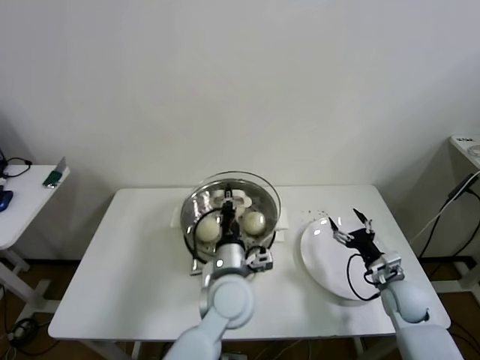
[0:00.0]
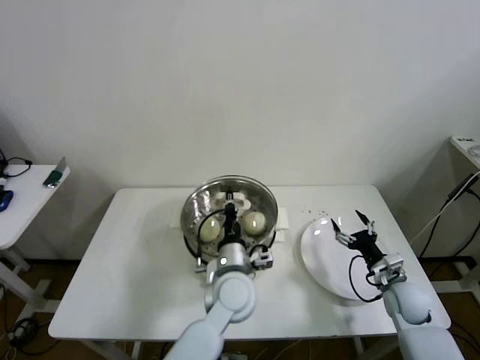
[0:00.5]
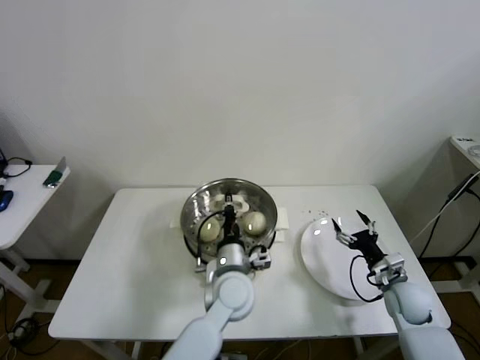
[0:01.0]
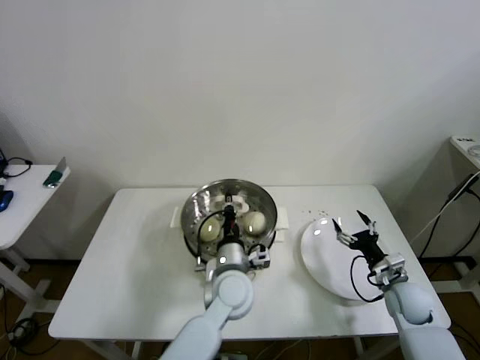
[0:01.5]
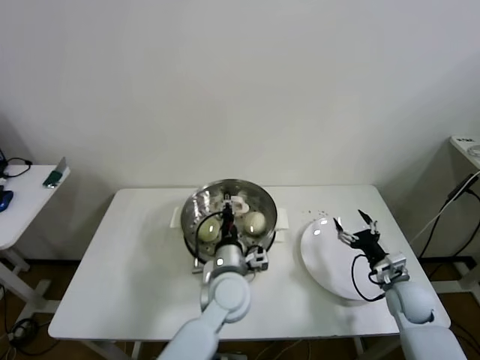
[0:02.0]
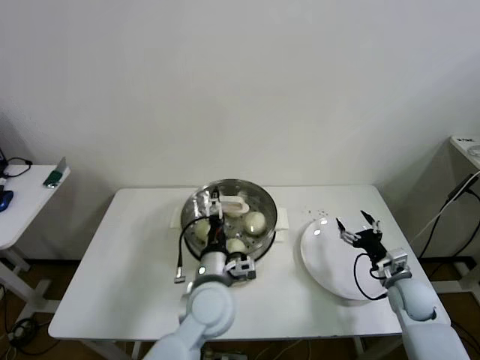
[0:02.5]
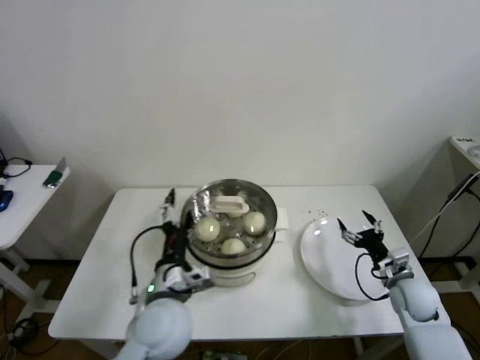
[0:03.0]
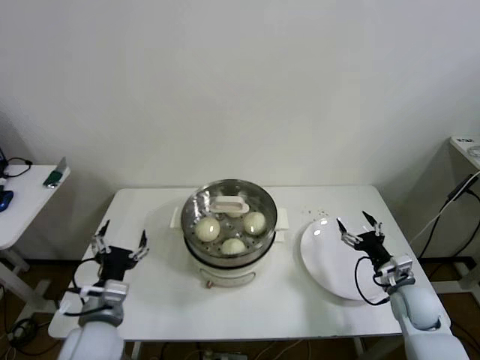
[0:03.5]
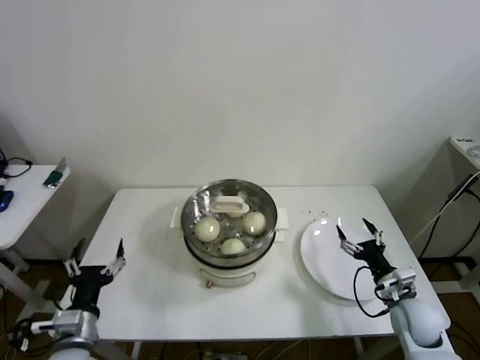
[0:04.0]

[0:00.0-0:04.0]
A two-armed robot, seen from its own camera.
Step, 0.0 to 2.5 s: Place the pot lid on the steamer with left gripper.
0.0 to 2.0 s: The grippers make only small movements.
2.0 to 4.0 s: The left gripper is displaced to the left and backward by roughly 30 cm, and opens.

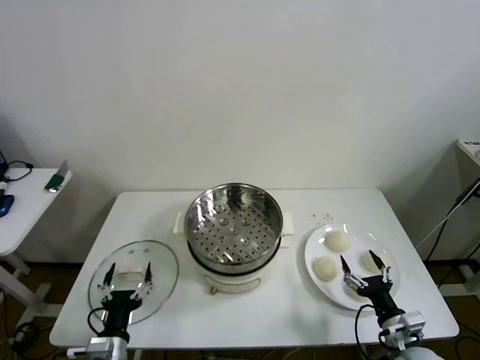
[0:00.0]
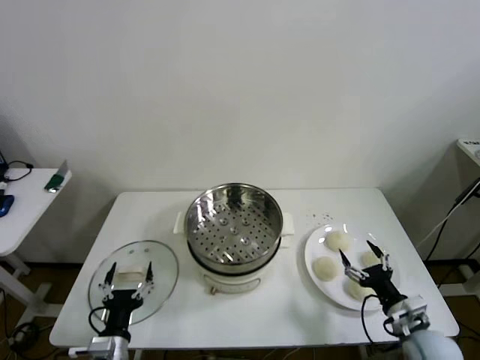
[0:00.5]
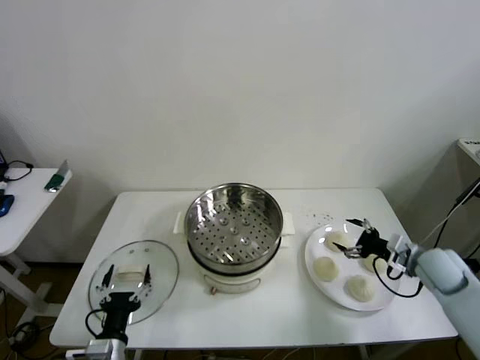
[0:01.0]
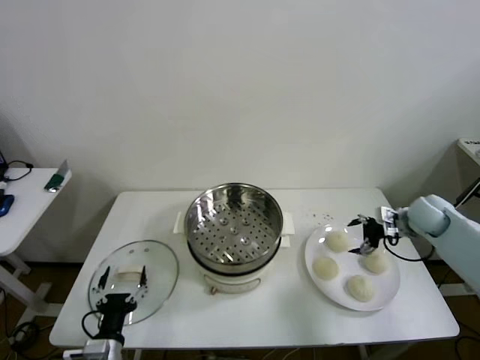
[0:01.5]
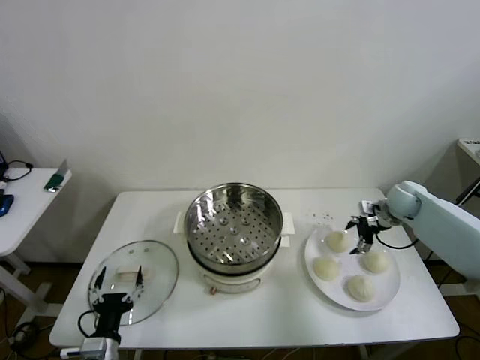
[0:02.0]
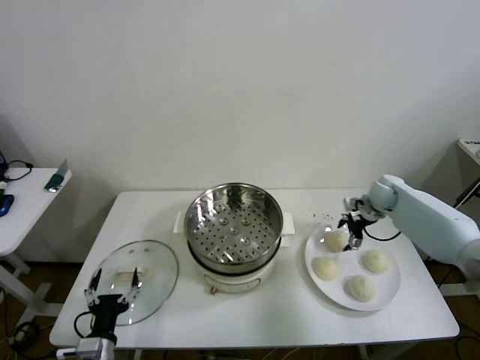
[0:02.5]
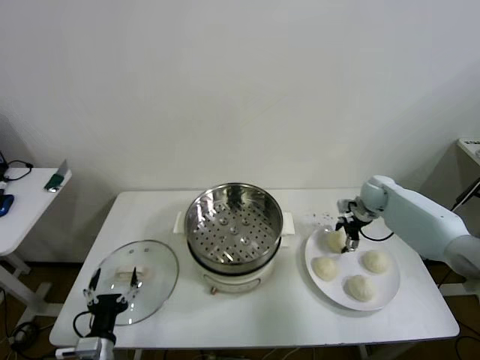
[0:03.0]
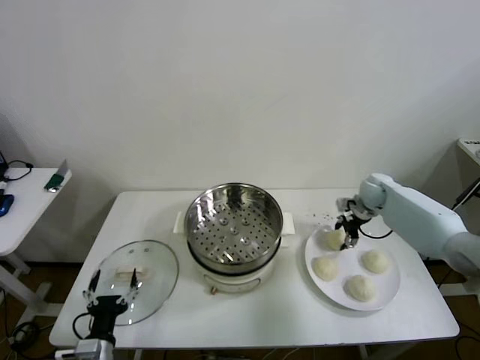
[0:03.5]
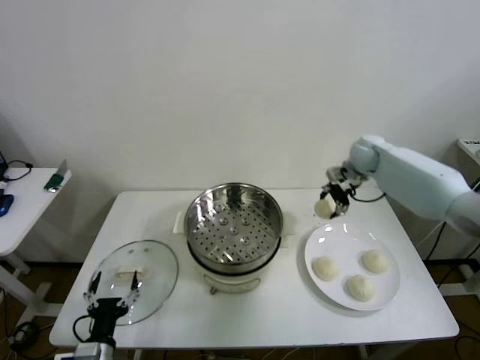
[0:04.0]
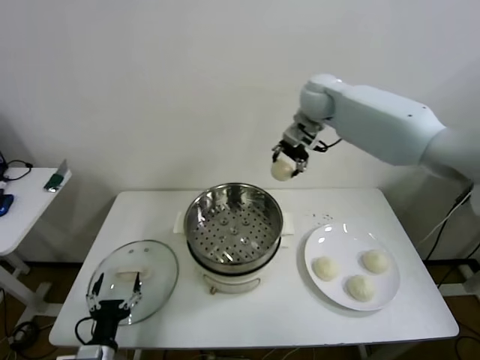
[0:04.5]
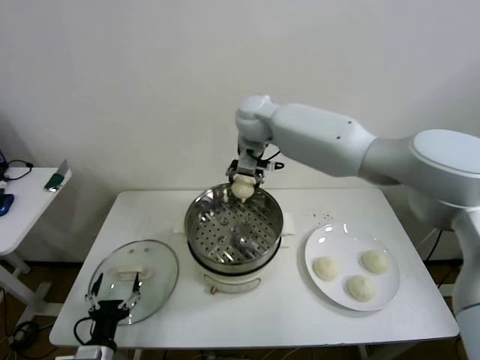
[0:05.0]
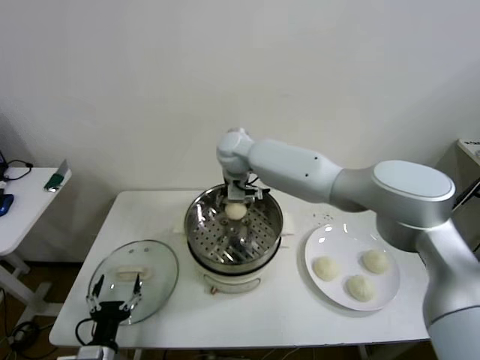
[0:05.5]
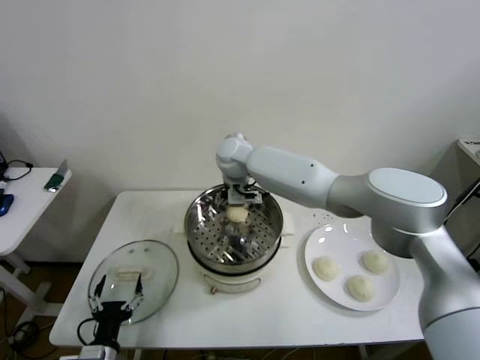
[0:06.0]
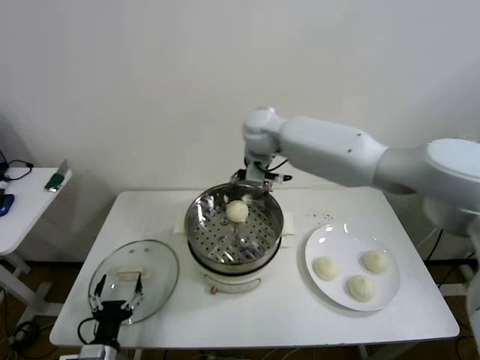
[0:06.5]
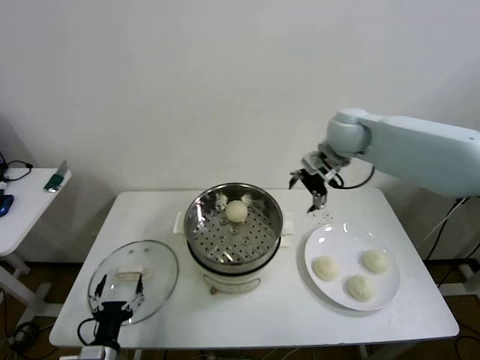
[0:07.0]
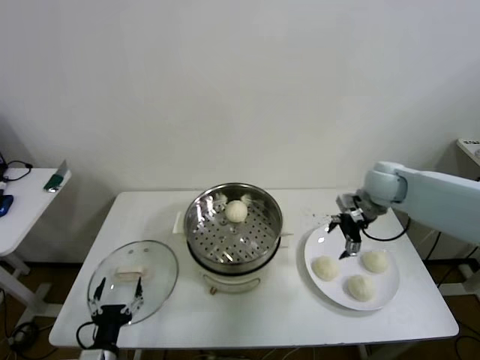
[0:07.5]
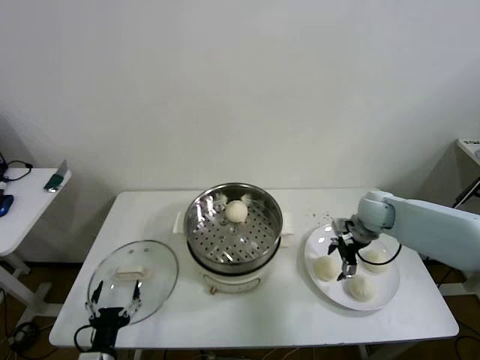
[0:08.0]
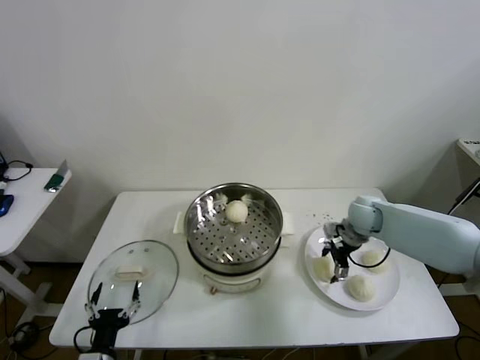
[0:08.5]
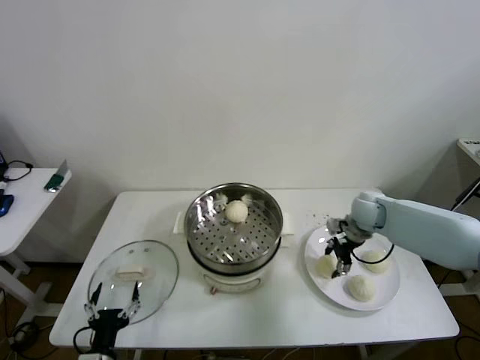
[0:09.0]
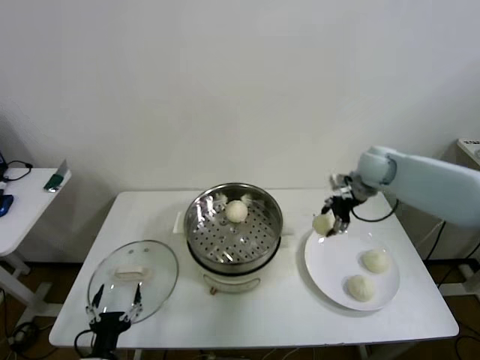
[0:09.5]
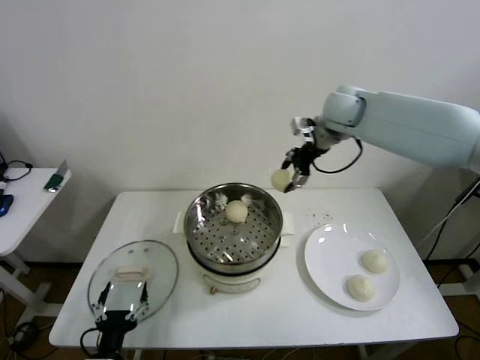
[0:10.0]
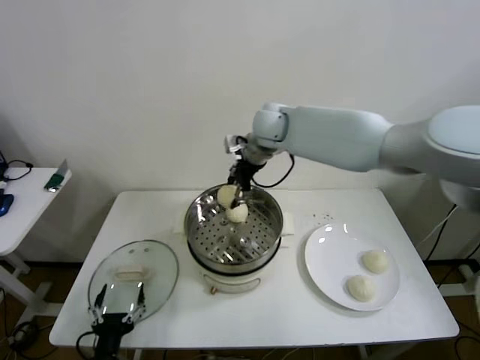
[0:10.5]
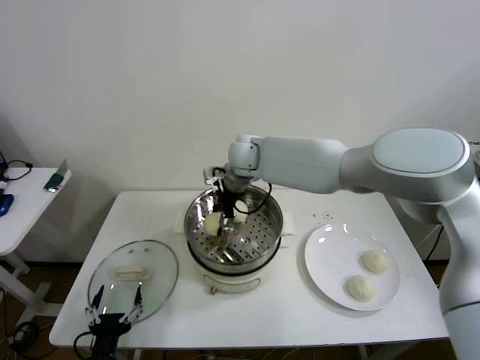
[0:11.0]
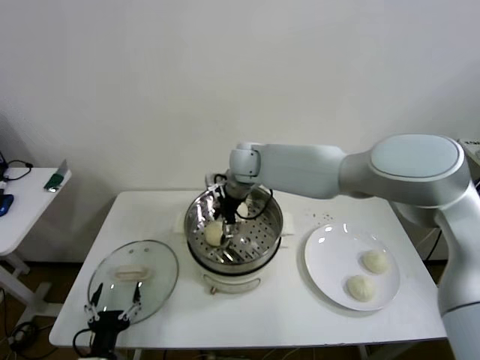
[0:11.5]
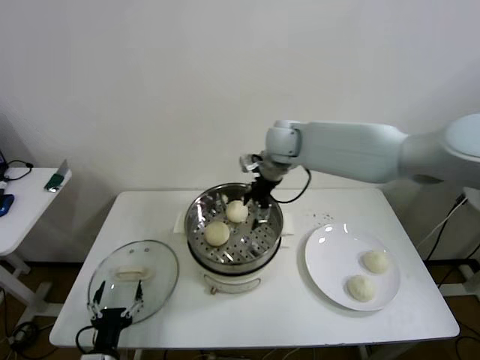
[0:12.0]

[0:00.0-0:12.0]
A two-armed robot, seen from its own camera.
Step, 0.0 to 3.0 s: Grasp the baozi in the plate with right gripper.
Step, 4.0 to 6.0 s: Place the baozi on the steamer with right gripper.
Step, 7.0 to 8.5 s: Grasp the baozi in the plate with right gripper.
Step, 9.0 to 11.5 s: Place the baozi on the steamer with right gripper.
2.0 to 4.0 s: The right gripper shifts approximately 20 cm upward, to the left and forward, and closes.
4.0 to 6.0 s: The right gripper travels to the left by about 30 cm, and opens up.
6.0 to 8.0 s: The right gripper shifts about 35 cm to the right.
8.0 to 10.0 s: The right gripper is displaced upward and to the left by roughly 30 cm, and closes its fingers.
10.0 to 12.0 s: The right gripper heads to the left and downward, covering approximately 10 cm, and opens up.

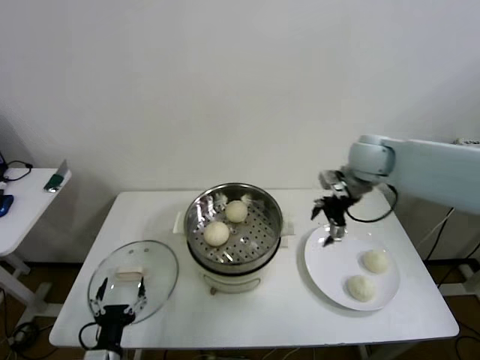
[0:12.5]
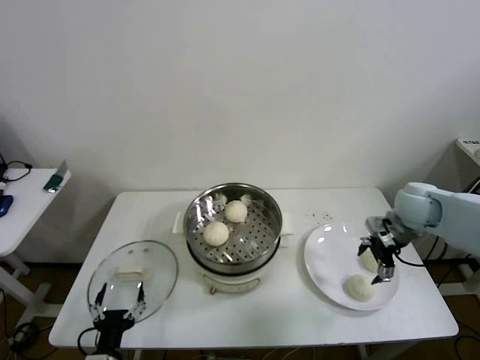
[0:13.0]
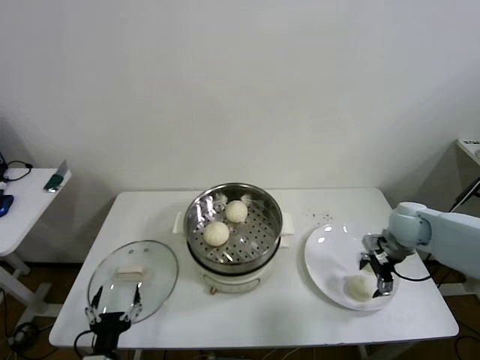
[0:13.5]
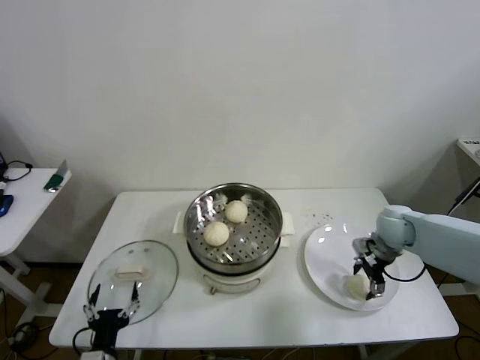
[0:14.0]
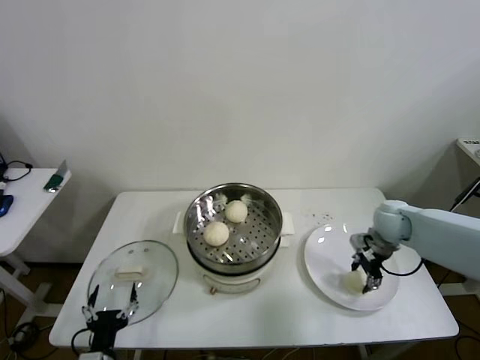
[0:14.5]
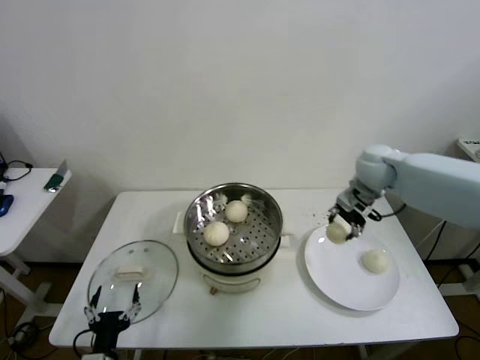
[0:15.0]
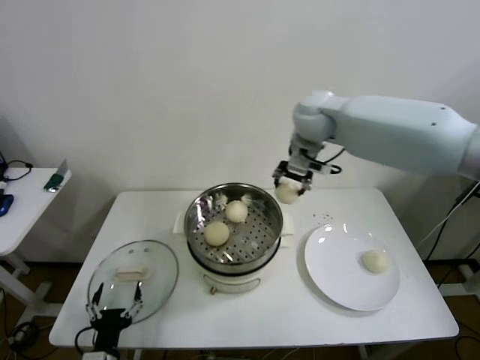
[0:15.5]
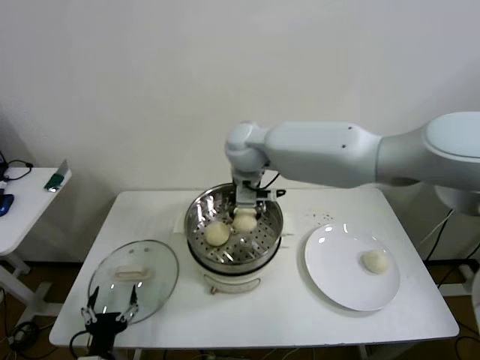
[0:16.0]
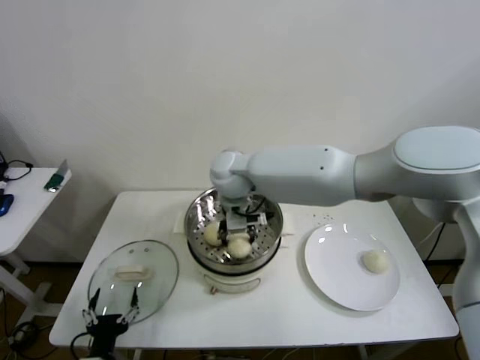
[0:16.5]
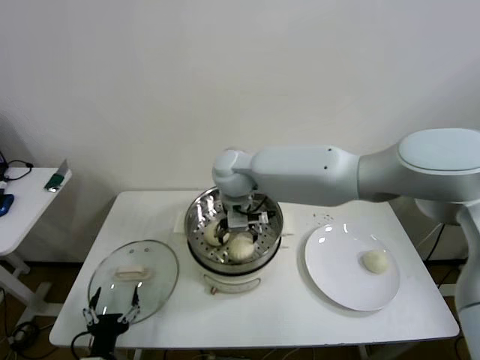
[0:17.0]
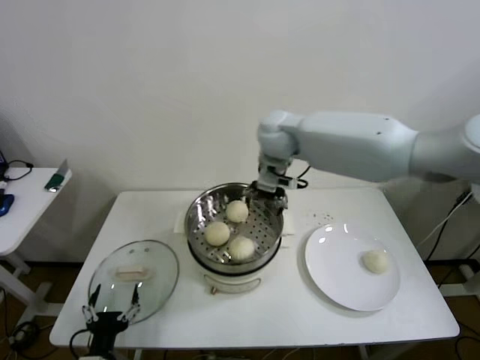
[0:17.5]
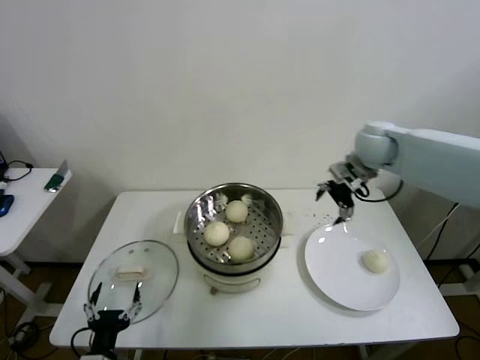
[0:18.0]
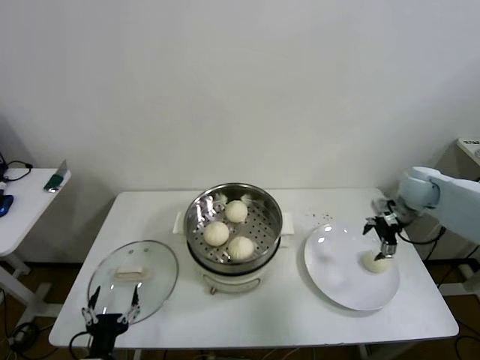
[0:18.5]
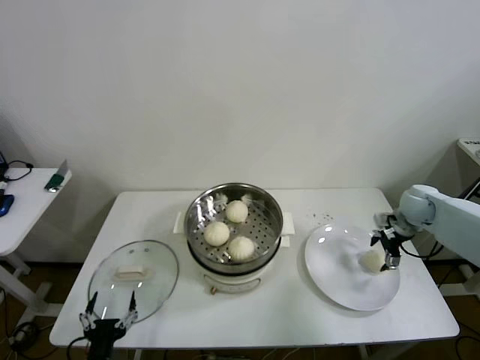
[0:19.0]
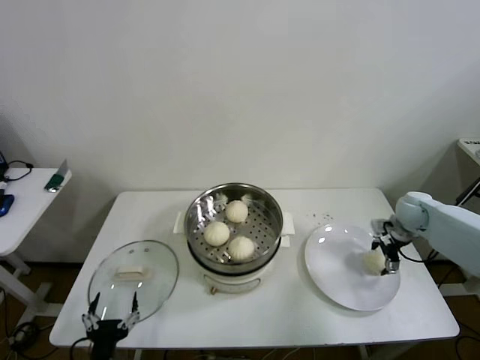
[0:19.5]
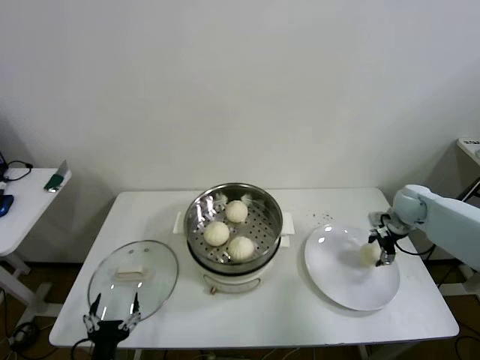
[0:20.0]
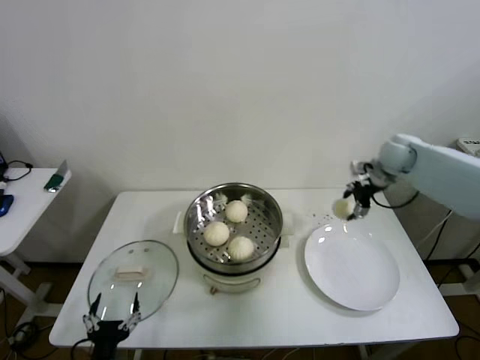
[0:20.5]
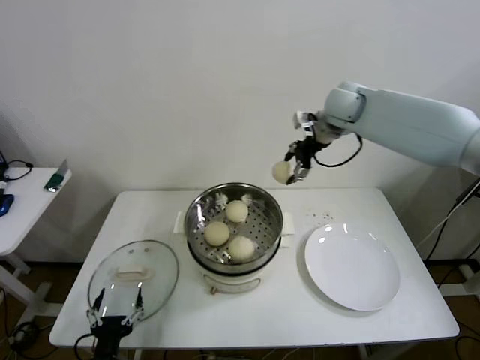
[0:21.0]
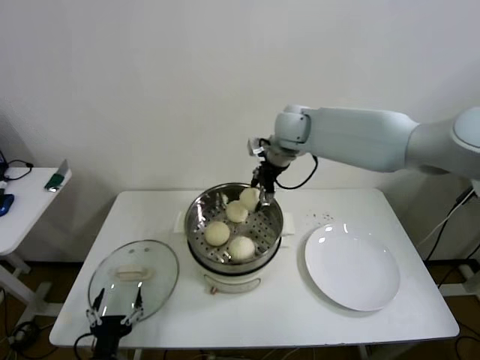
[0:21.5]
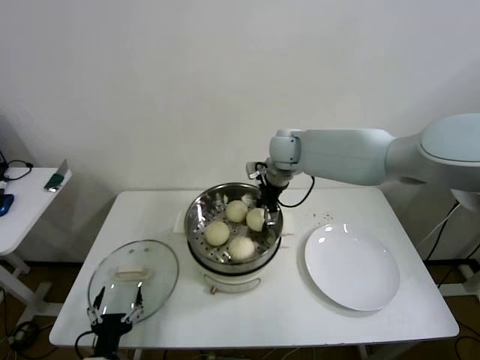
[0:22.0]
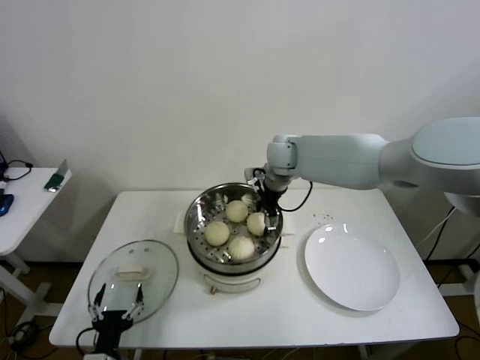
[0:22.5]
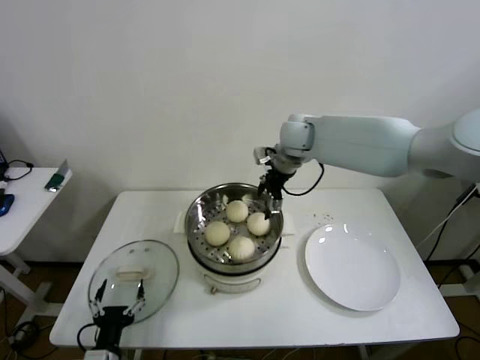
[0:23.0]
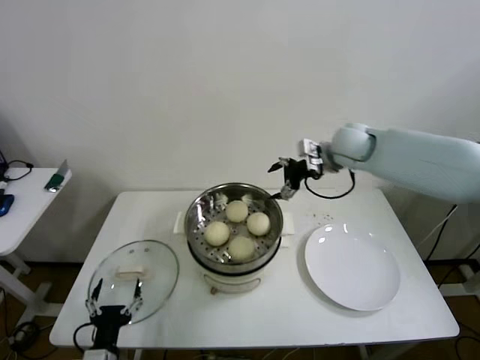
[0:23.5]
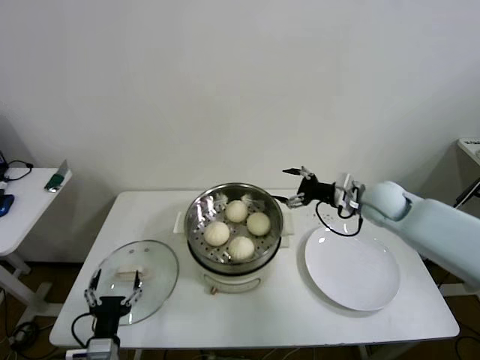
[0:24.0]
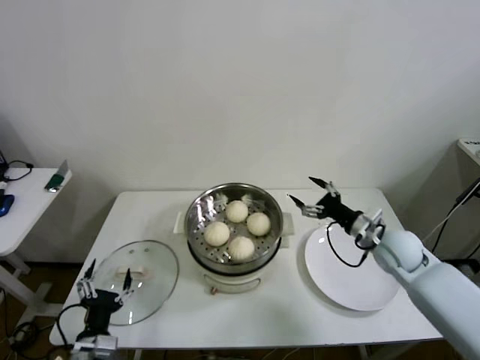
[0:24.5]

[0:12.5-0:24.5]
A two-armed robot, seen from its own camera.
Step, 12.5 to 14.0 s: Grasp the baozi in the plate with right gripper.
Step, 14.5 to 17.0 s: Place the baozi on the steamer with right gripper.
Step, 17.5 to 19.5 s: Grasp the baozi in the plate with right gripper.
Step, 20.0 to 23.0 s: Place the baozi on the steamer with right gripper.
12.5 to 14.5 s: The right gripper shifts approximately 15 cm downward and to the right, and closes up.
14.5 to 16.5 s: The right gripper heads to the left, covering roughly 40 cm.
16.5 to 18.5 s: The right gripper moves to the right, roughly 40 cm, and opens.
18.5 to 20.5 s: The right gripper moves forward, upward and to the left, about 10 cm, and closes.
20.5 to 22.5 s: The right gripper is displaced to the left by roughly 25 cm, and opens its fingers.
22.5 to 24.5 s: The right gripper goes some 35 cm to the right, backward and downward.
